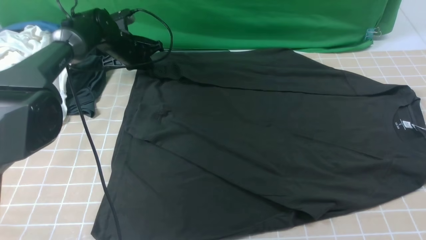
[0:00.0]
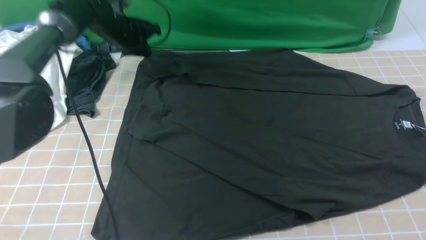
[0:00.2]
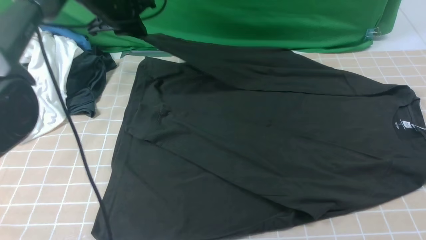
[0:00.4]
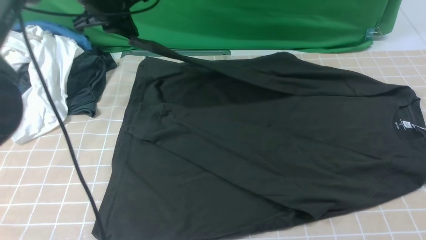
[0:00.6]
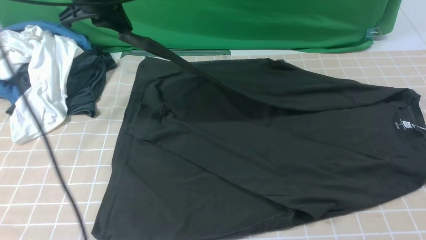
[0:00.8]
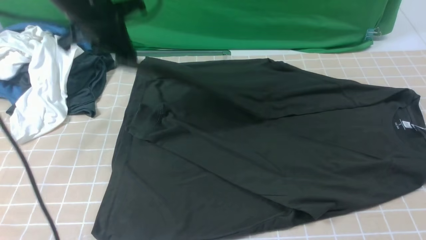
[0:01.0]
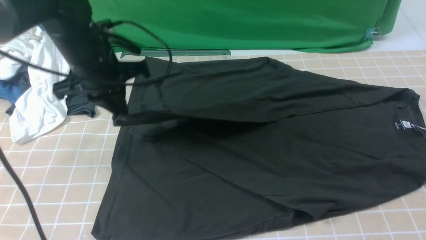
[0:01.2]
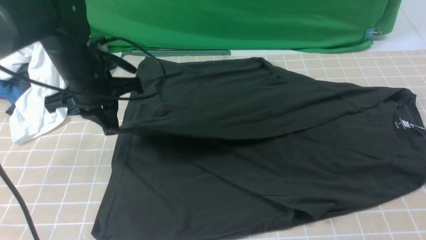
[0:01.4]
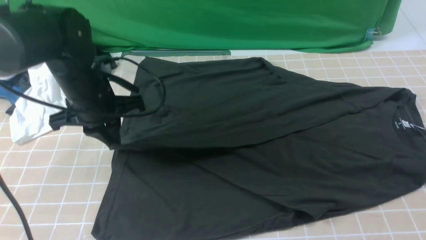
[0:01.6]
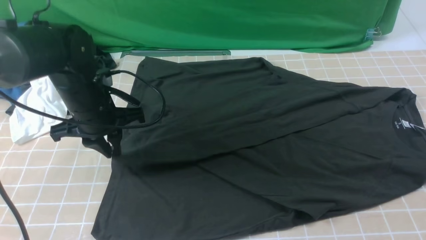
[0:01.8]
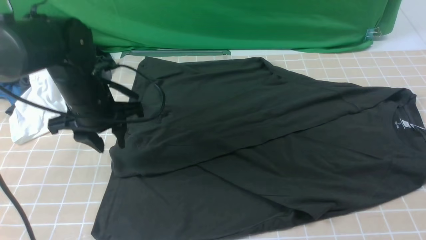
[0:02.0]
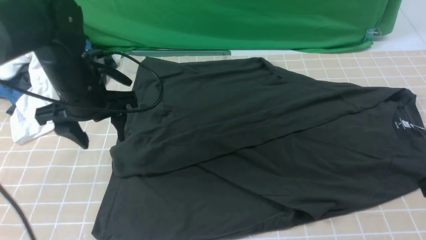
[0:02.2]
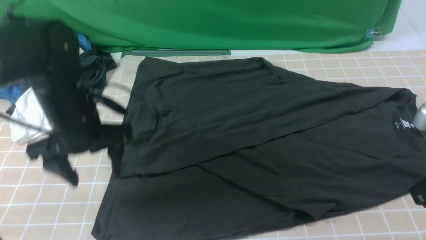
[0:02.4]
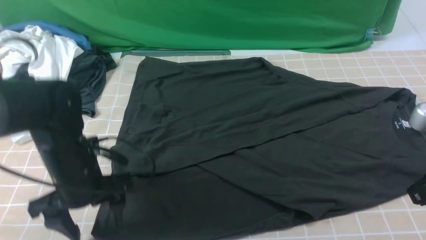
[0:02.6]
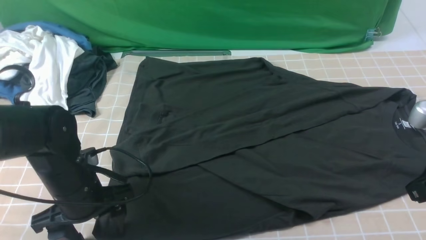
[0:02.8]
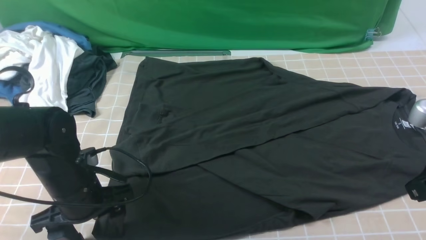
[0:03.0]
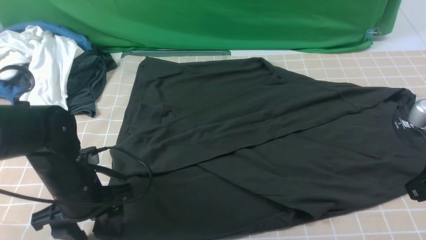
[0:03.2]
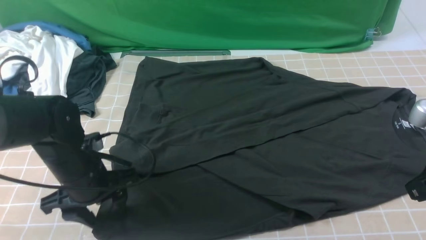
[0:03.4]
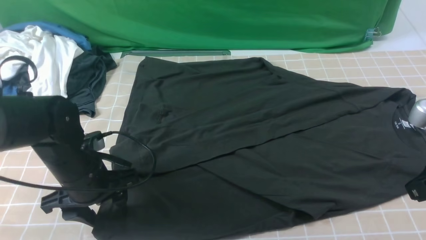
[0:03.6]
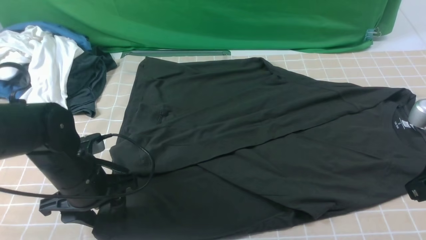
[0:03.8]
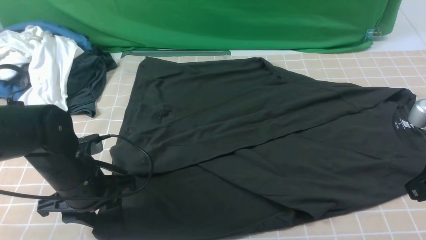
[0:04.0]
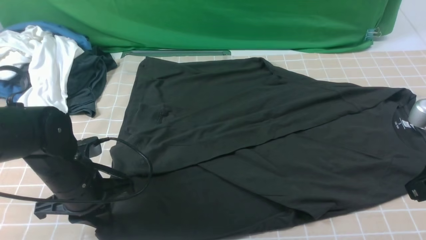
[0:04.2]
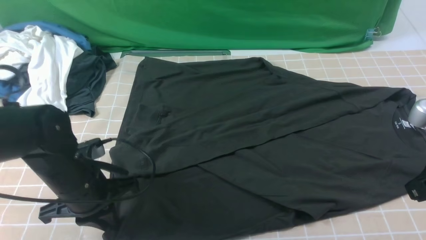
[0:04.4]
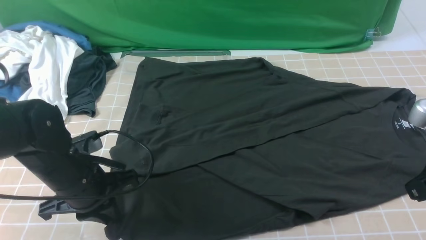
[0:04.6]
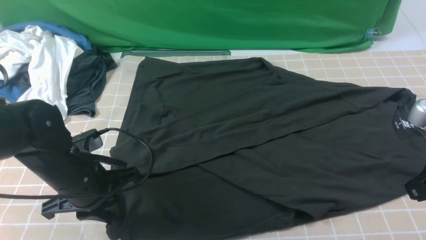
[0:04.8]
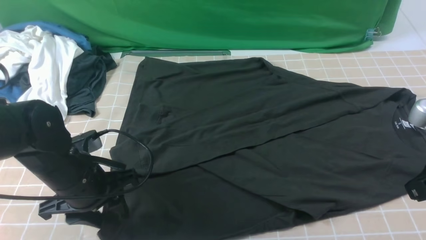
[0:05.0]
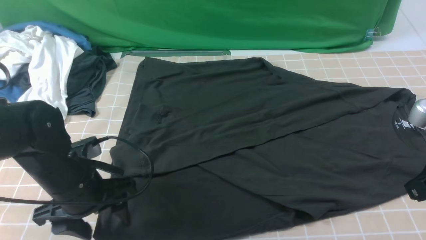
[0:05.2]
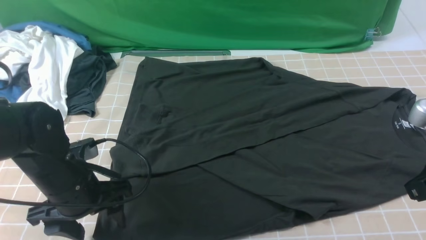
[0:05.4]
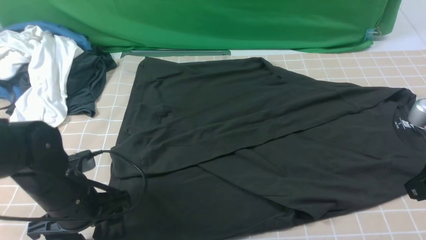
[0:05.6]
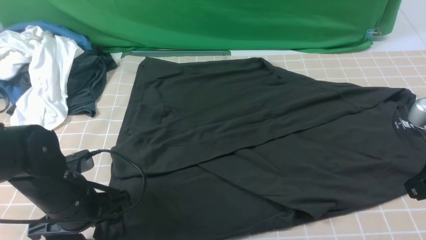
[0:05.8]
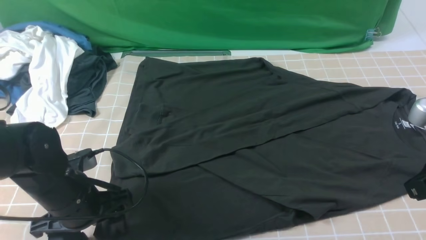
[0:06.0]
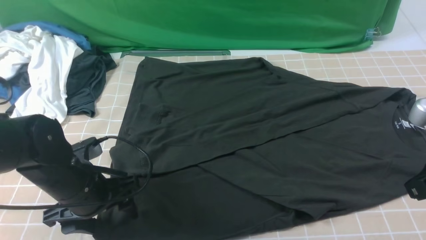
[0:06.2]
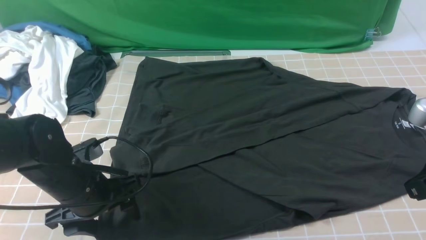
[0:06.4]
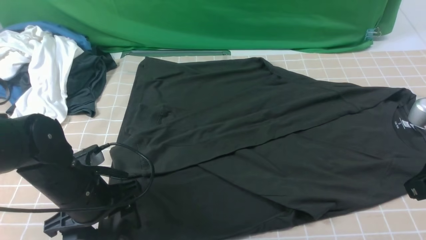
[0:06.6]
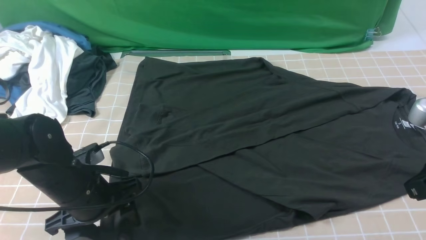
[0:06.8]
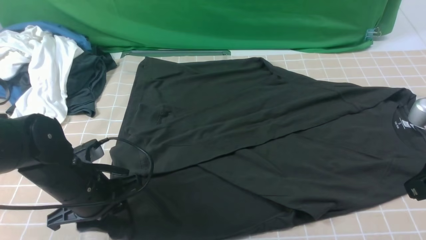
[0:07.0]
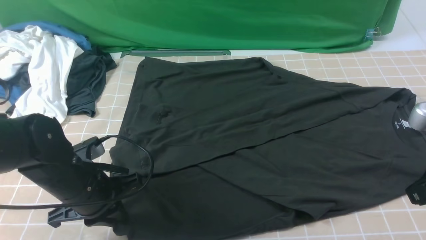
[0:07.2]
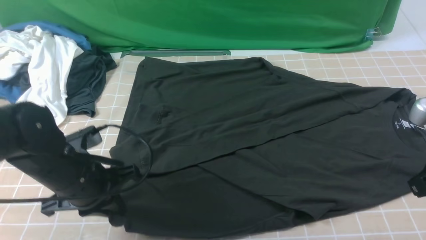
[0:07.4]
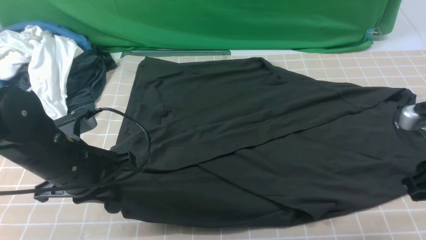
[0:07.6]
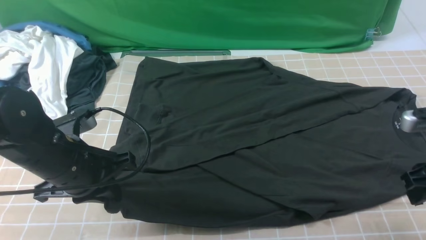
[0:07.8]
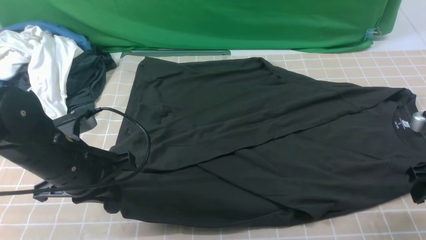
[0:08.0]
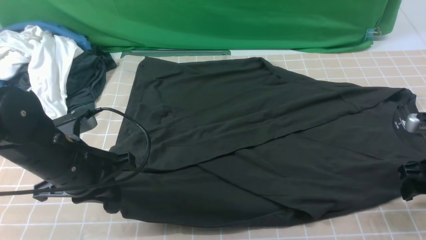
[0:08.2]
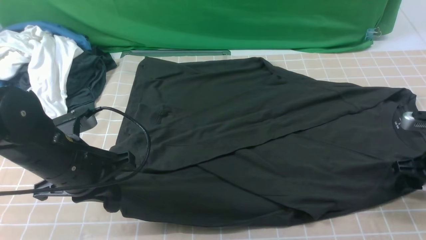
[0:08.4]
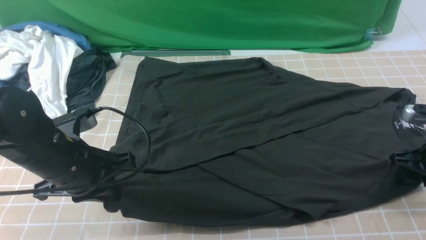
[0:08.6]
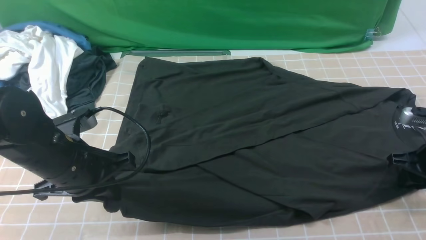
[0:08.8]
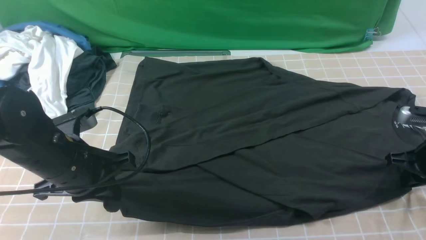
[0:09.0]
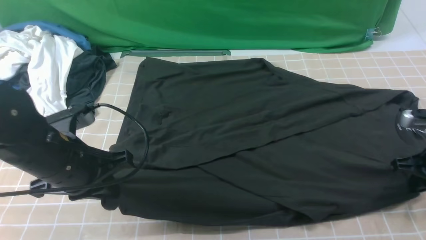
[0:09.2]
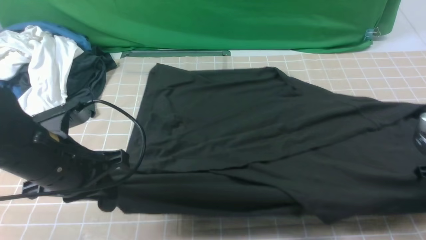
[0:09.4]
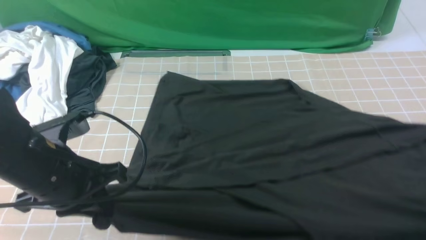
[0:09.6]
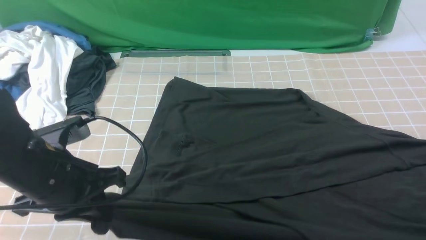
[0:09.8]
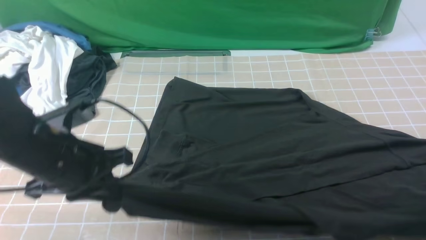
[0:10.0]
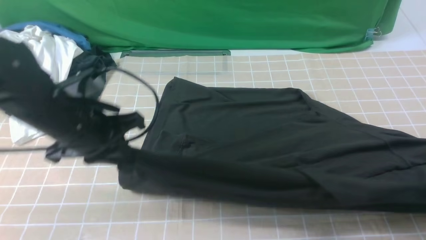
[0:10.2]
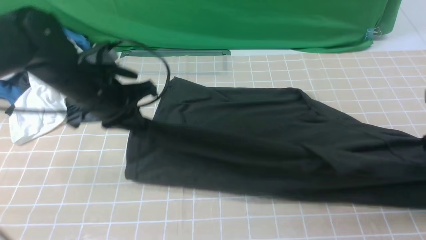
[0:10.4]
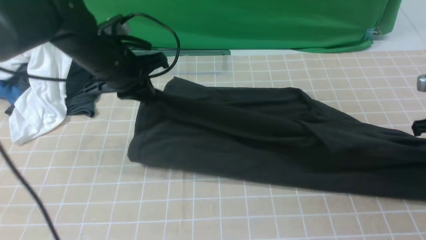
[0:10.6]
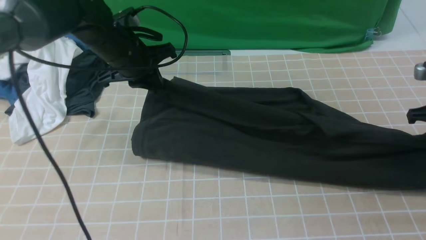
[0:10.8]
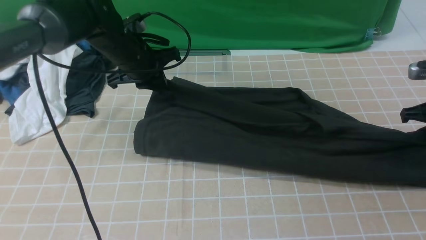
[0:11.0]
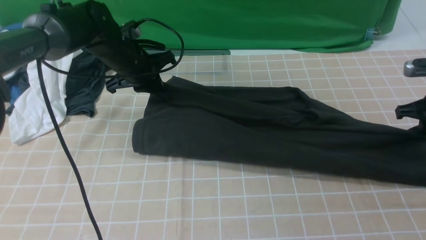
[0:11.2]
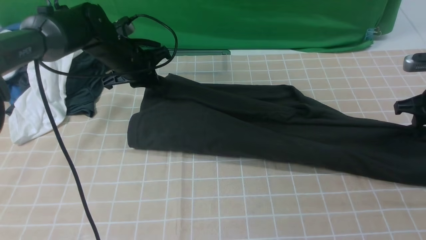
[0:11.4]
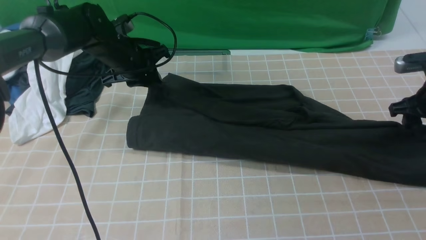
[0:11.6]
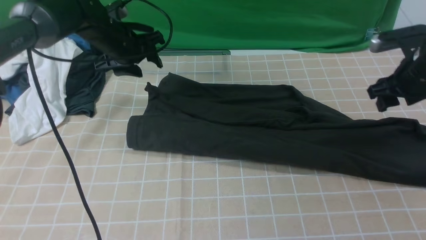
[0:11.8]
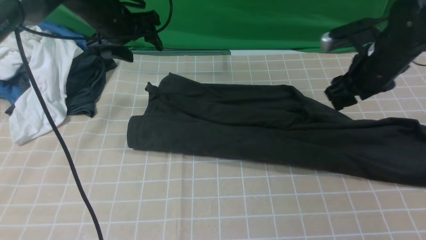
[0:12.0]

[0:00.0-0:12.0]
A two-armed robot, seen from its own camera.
Step, 0:00.2 to 0:02.2: use the left arm to drag and drop the cuff onto the cuff closest to the left arm.
Step, 0:02.4 to 0:08.8: use both arms simultaneously to clamp the lower edge of the clothing fabric.
0:00.0 to 0:01.6: The left gripper goes about 20 cm backward.
0:01.6 to 0:03.0: The right gripper moves approximately 5 cm; the left gripper heads backward and downward, covering some 15 cm, and opens up.
0:03.0 to 0:04.4: The left gripper closes.
0:04.4 to 0:06.0: The left gripper opens up.
0:06.0 to 0:07.6: The left gripper is displaced upward by some 5 cm, and closes its fingers. The right gripper opens up.
0:07.6 to 0:09.0: The right gripper goes some 10 cm downward and forward, and opens and closes again.
0:09.0 to 0:10.4: The left gripper is displaced forward by approximately 10 cm, while the right gripper heads upward, covering about 5 cm, and goes backward and returns, approximately 5 cm each way.
0:10.4 to 0:12.0: The right gripper goes about 15 cm to the left and forward, and opens up. The left gripper shifts about 15 cm forward, and opens its fingers.

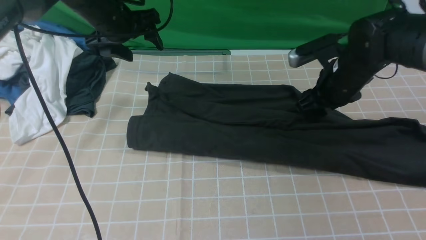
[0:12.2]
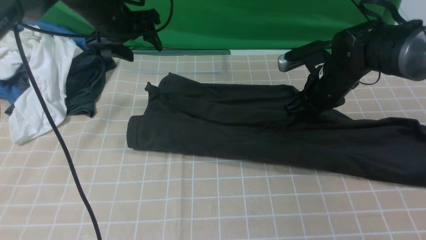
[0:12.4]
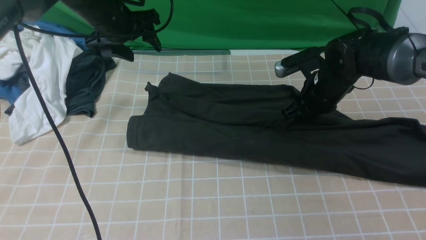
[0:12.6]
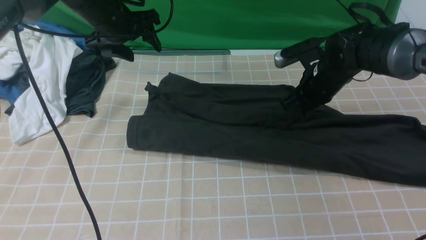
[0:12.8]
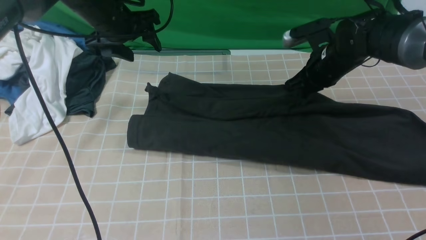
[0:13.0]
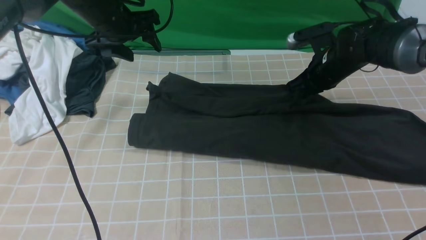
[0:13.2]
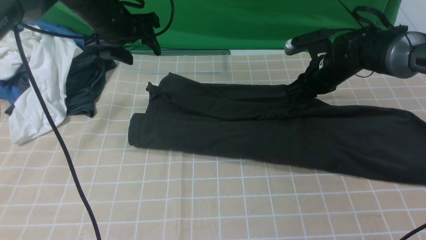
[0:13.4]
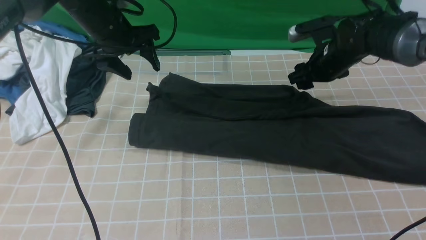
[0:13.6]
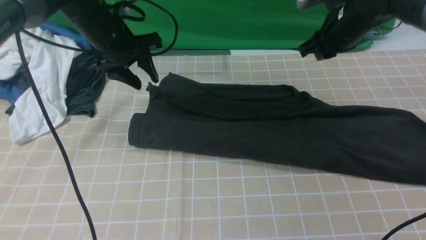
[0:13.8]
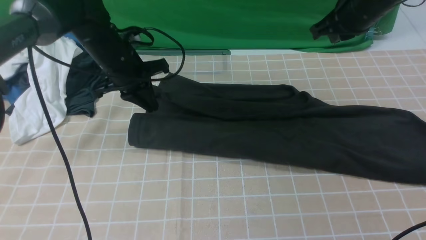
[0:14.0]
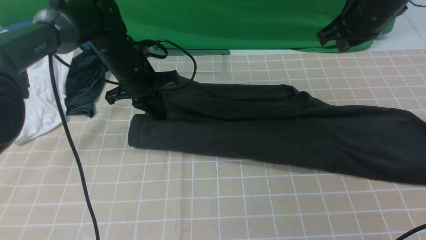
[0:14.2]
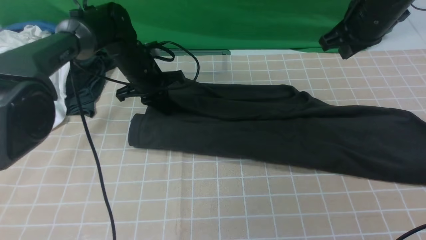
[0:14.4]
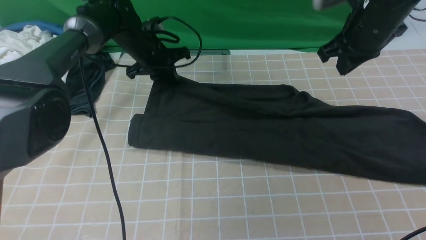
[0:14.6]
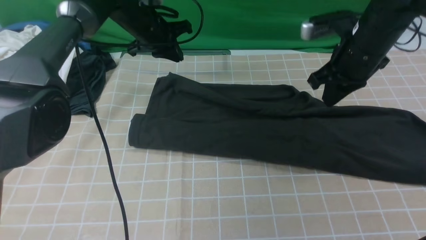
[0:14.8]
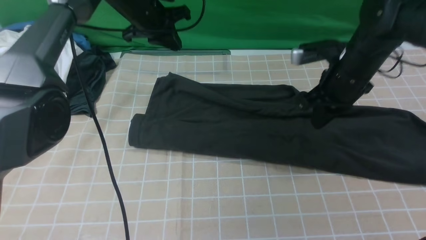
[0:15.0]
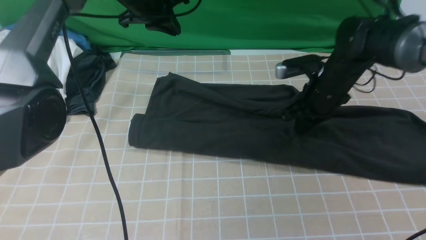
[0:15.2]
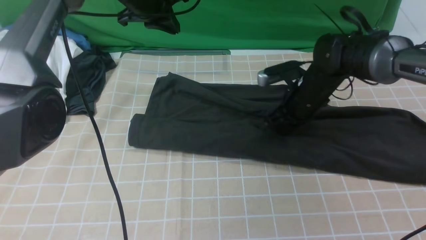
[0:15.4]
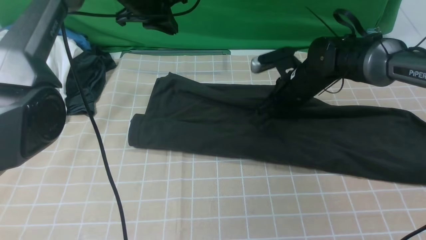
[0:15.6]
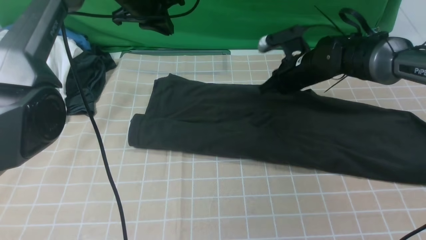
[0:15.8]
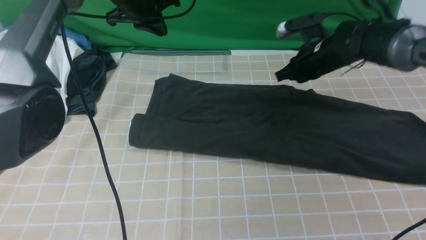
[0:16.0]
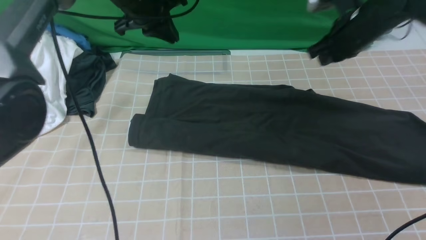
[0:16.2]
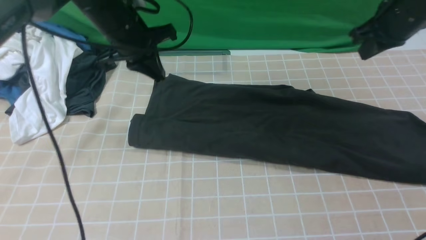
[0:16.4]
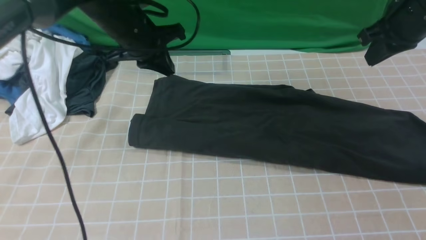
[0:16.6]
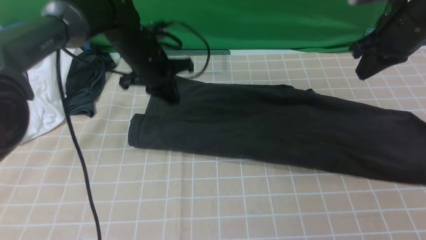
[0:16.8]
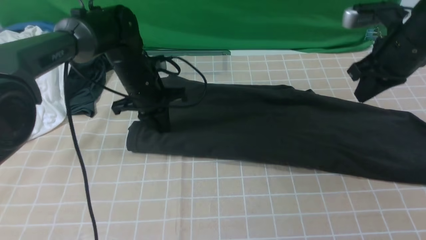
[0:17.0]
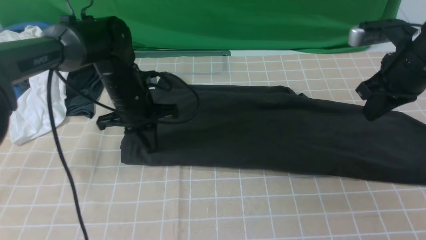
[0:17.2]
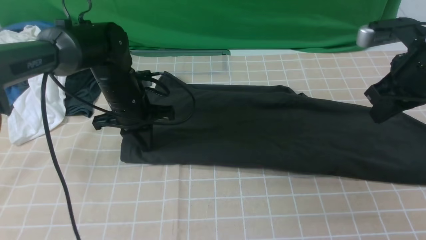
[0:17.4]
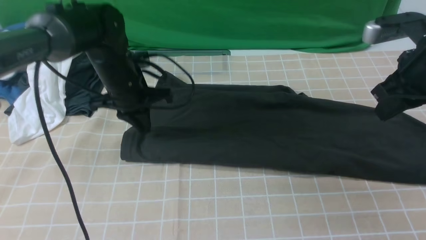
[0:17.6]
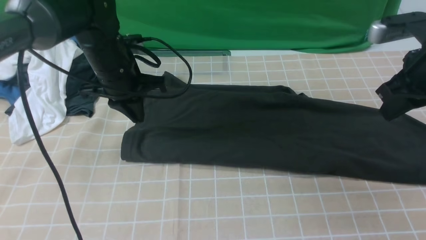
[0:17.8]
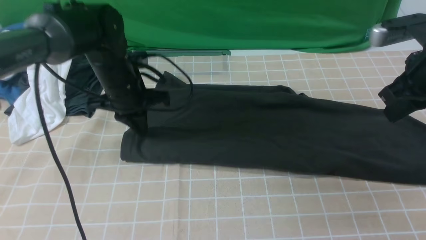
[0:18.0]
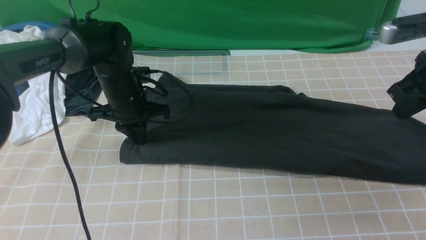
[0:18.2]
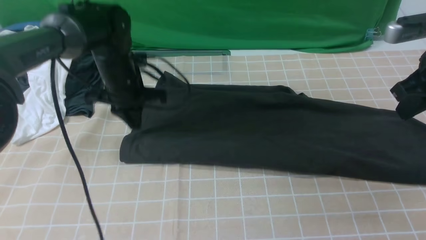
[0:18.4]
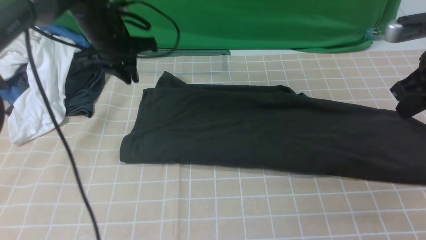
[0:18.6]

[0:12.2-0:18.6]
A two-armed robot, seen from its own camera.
0:12.2 to 0:13.8: The right gripper moves upward and forward, approximately 10 cm, and closes; the left gripper closes.
0:13.8 to 0:15.4: The left gripper heads forward and upward, covering approximately 10 cm, and closes its fingers, while the right gripper travels downward and to the left by about 10 cm.
0:15.4 to 0:17.0: The right gripper goes approximately 20 cm upward, to the right and backward, while the left gripper shifts about 15 cm downward and backward.
0:17.0 to 0:18.6: The left gripper shifts approximately 5 cm upward, while the right gripper shifts by some 5 cm.
